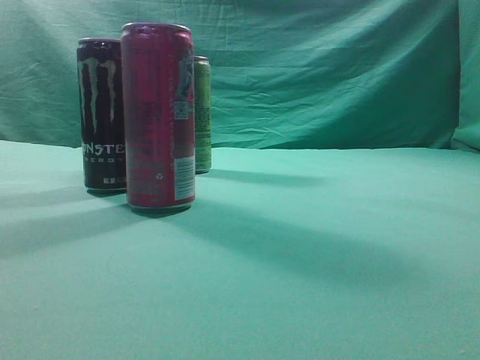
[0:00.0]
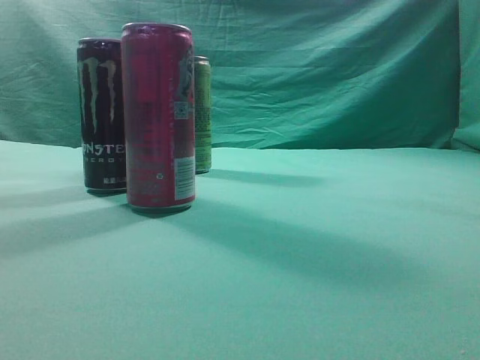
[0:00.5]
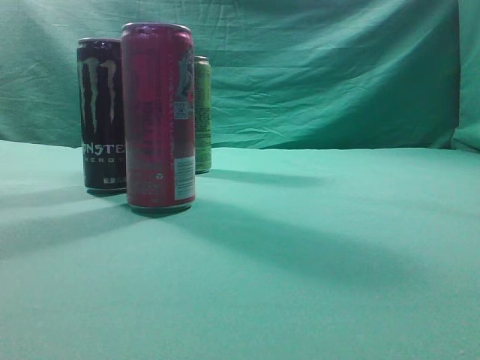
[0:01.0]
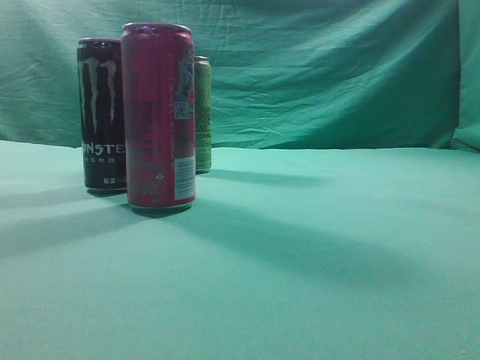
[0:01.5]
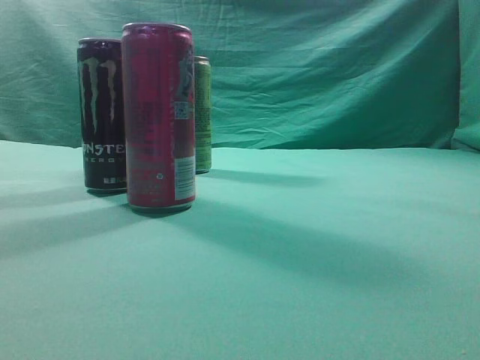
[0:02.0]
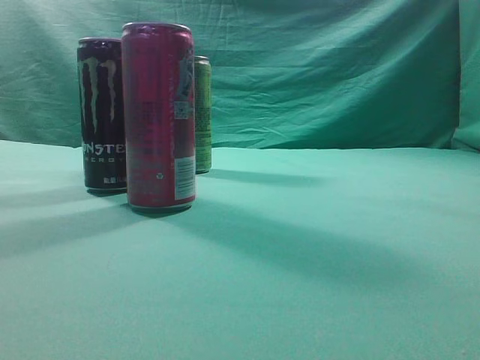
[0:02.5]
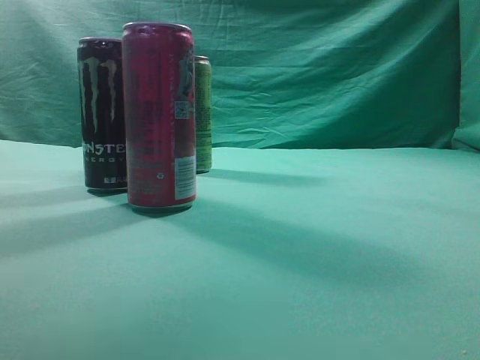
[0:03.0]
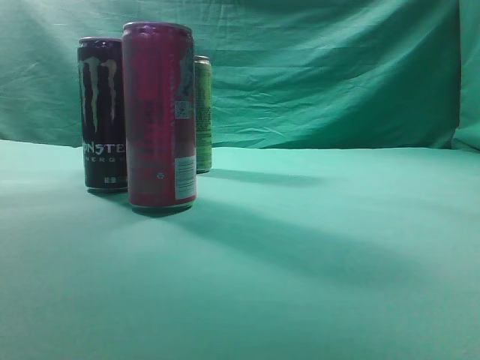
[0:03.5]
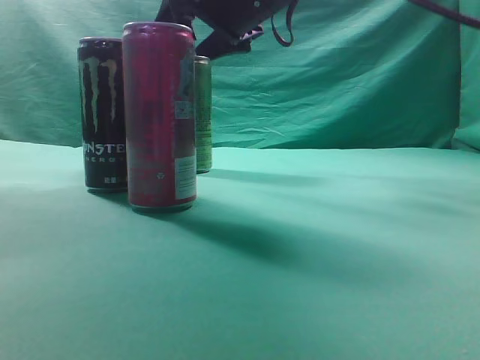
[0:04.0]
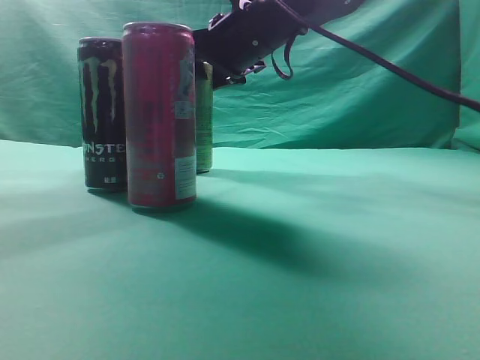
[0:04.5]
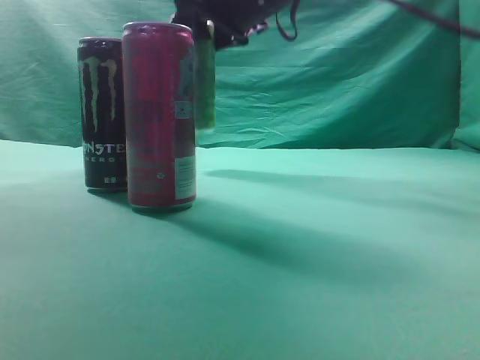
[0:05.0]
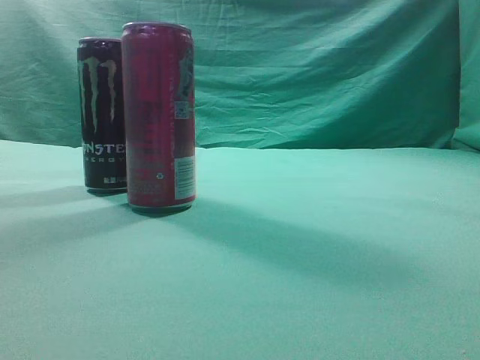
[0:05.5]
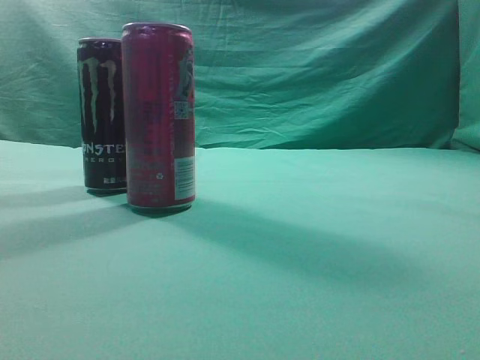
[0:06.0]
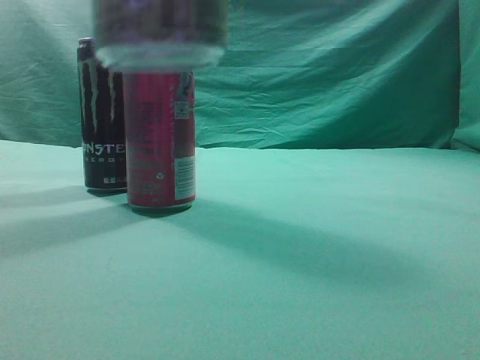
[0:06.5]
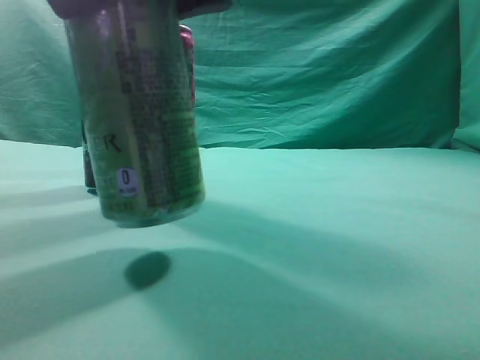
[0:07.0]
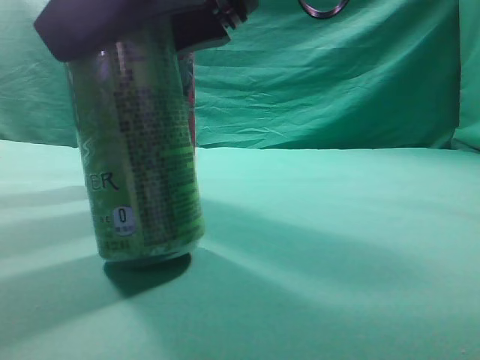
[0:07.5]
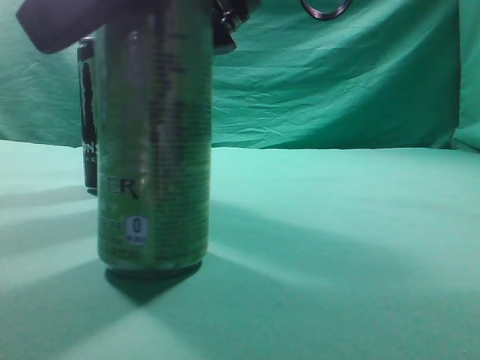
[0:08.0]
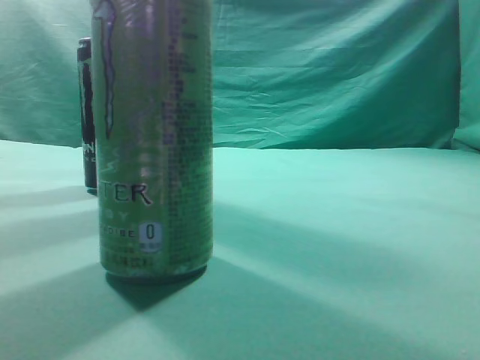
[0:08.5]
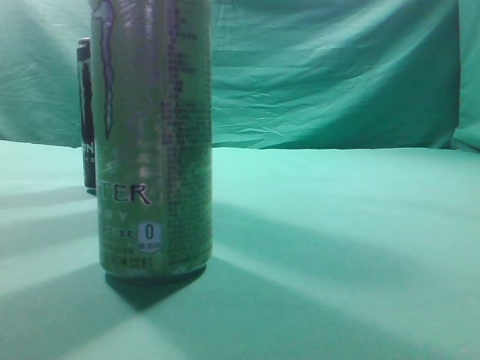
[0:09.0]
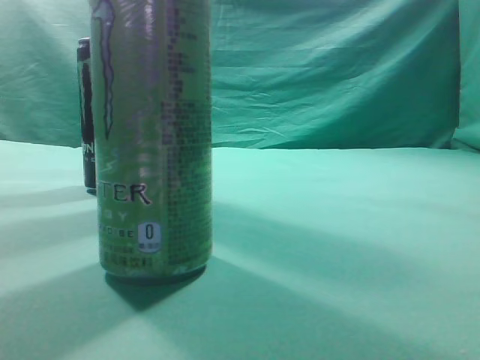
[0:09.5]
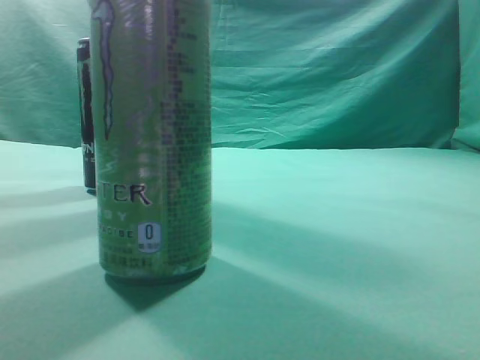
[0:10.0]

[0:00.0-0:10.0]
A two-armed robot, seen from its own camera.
Task of the whole recording: move one drink among three beverages.
Step, 0:00.0 to 0:04.5: Grasp the beverage bottle placed at the back of the desk.
Step, 0:05.0 to 0:08.0: Place the beverage bottle to the front of the table.
0:02.0 to 0:04.0: The right gripper shifts roughly 50 cm forward and to the left, and opens its fingers.
0:04.0 to 0:06.0: The right gripper shifts roughly 30 cm backward, upward and to the right.
0:06.0 to 0:08.0: The right gripper travels downward and to the left by approximately 25 cm.
0:08.0 to 0:10.0: The right gripper heads upward and to the right, covering roughly 25 cm, and closes up.
